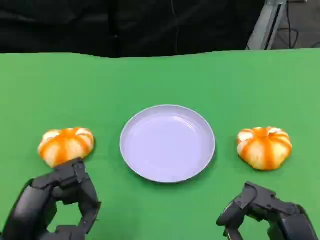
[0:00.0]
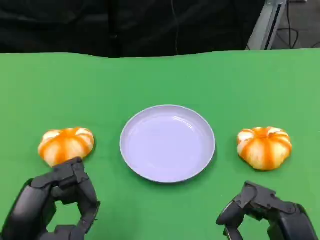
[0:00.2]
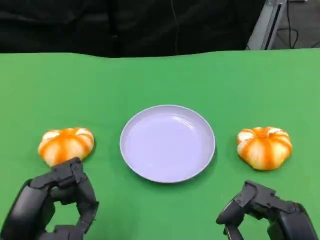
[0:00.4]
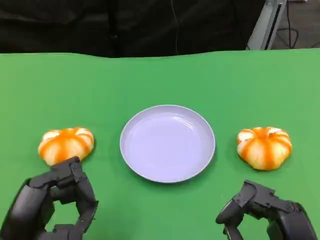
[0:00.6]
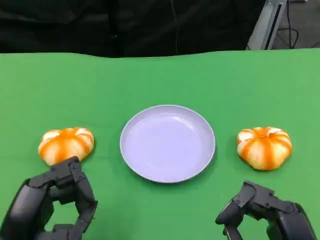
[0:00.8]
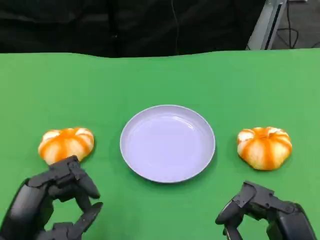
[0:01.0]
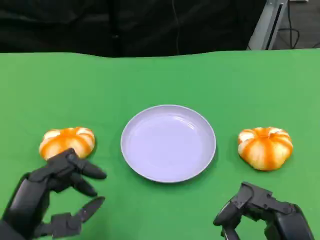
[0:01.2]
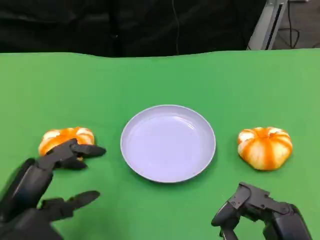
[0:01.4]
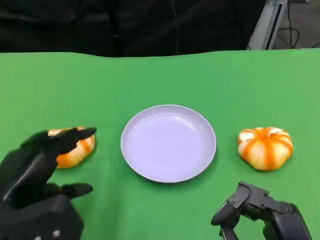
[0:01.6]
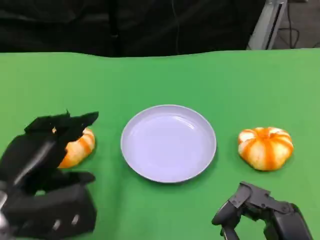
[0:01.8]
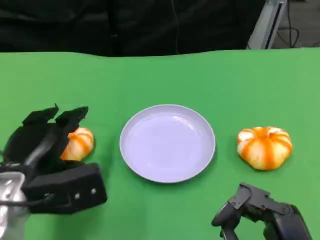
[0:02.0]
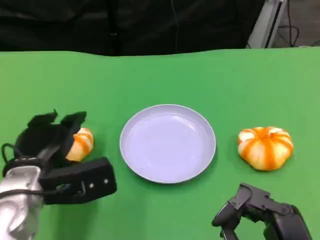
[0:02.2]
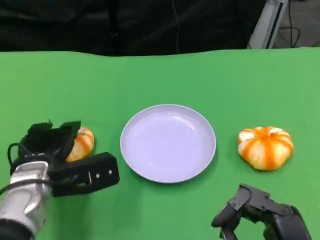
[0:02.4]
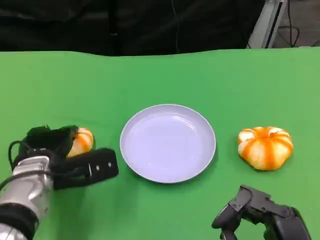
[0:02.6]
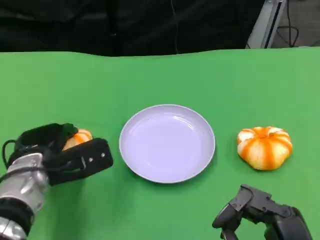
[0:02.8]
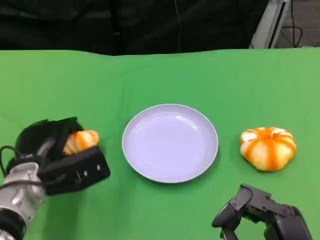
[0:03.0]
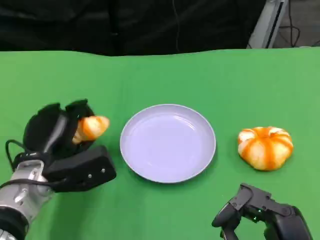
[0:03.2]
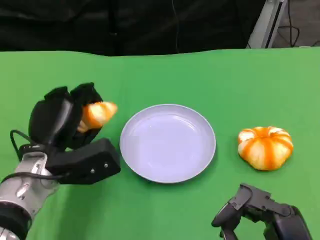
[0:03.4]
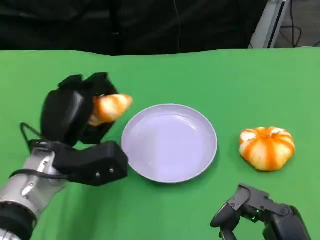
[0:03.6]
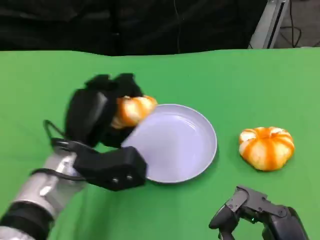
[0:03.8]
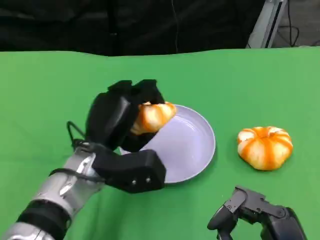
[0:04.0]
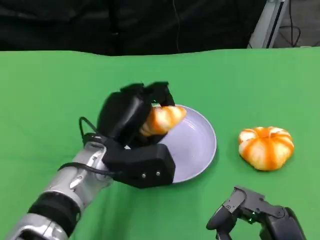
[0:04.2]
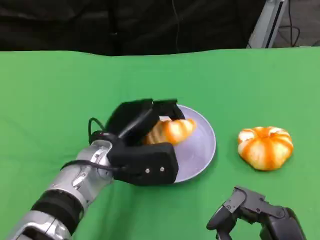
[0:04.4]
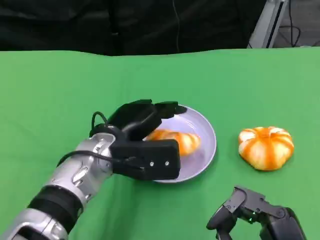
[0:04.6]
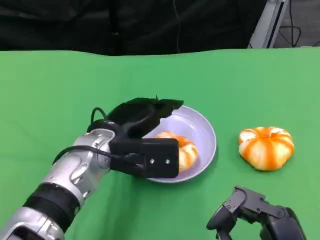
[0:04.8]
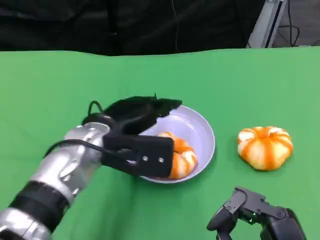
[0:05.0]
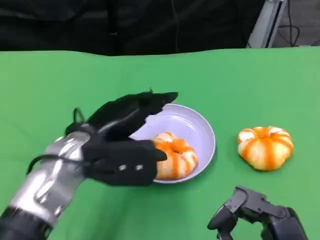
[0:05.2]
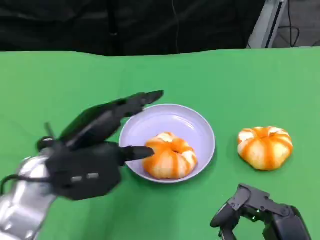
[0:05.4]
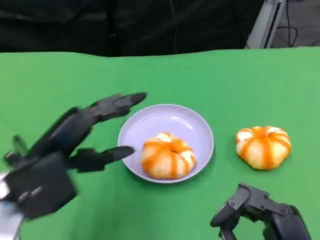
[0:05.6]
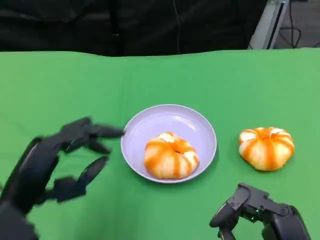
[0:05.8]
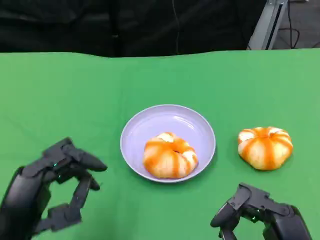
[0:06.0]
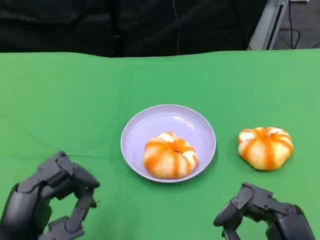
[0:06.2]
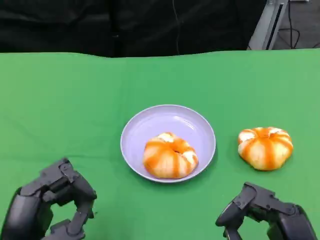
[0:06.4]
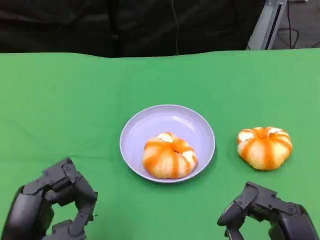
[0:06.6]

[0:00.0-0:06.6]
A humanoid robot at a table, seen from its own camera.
Task of the whole recording: Grasp the bread from the table and place it into the plate.
0:00.0 to 0:01.6: The left hand moves approximately 5 cm.
0:01.6 to 0:03.2: The left hand is displaced forward and downward by approximately 10 cm.
0:03.2 to 0:05.0: The left hand moves to the right and upward, roughly 10 cm.
0:05.0 to 0:06.6: The left hand goes some 20 cm backward and to the left.

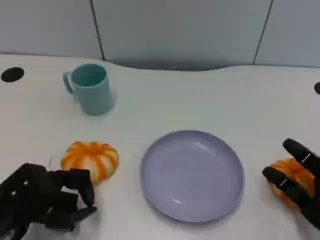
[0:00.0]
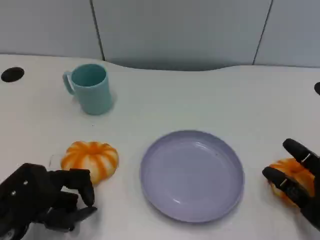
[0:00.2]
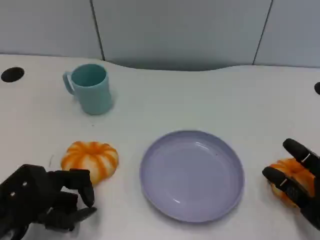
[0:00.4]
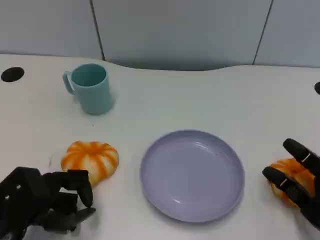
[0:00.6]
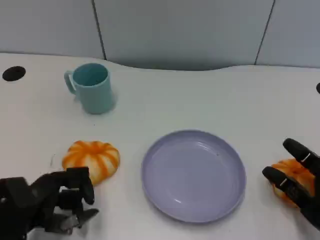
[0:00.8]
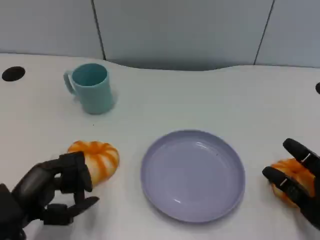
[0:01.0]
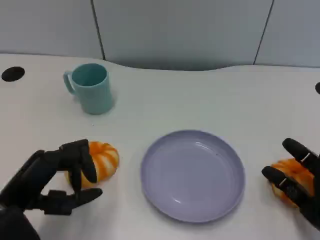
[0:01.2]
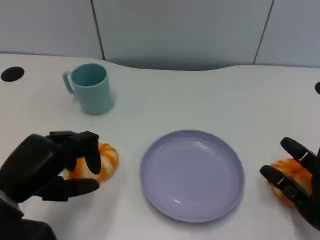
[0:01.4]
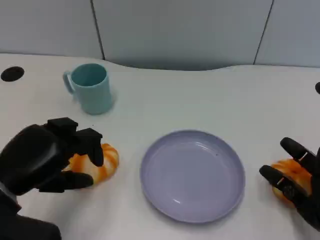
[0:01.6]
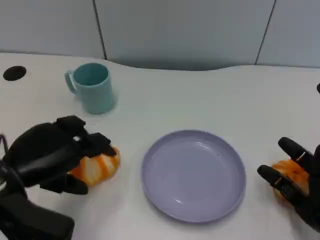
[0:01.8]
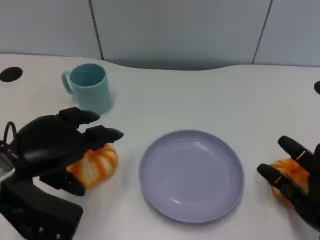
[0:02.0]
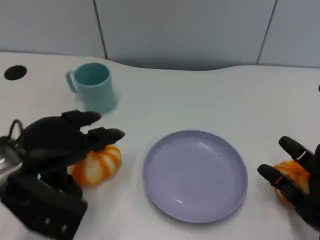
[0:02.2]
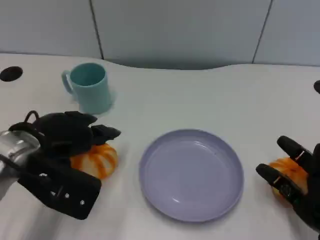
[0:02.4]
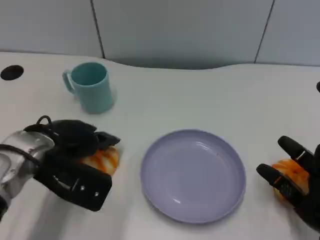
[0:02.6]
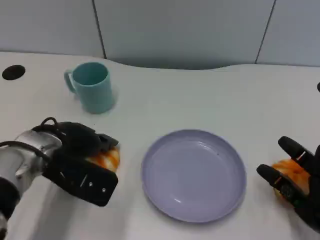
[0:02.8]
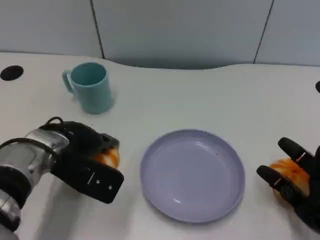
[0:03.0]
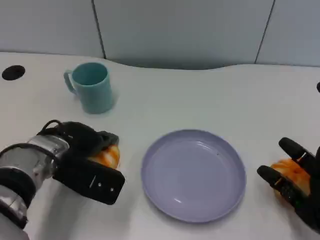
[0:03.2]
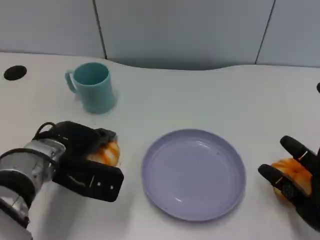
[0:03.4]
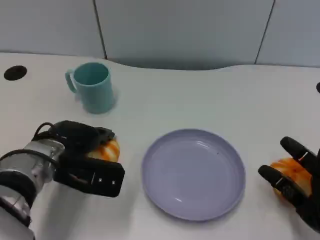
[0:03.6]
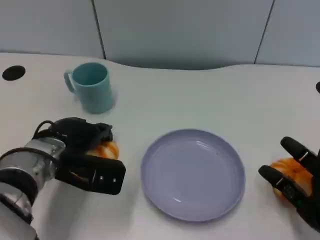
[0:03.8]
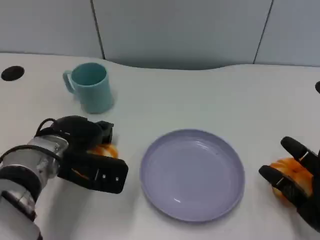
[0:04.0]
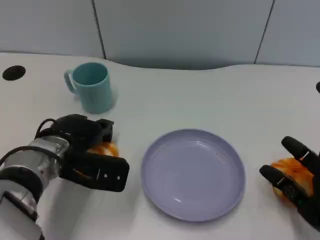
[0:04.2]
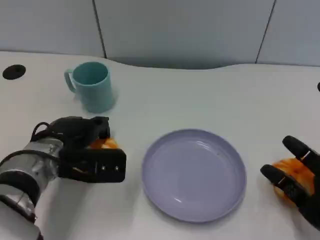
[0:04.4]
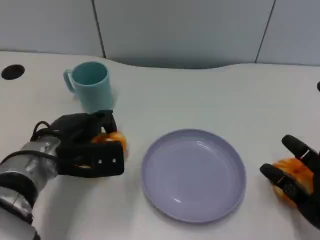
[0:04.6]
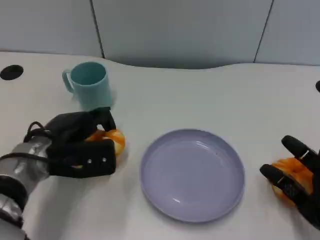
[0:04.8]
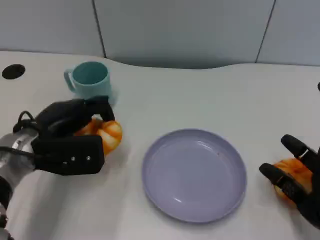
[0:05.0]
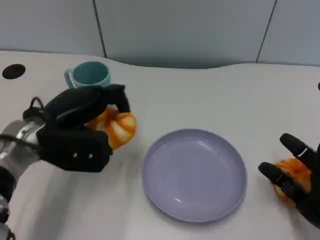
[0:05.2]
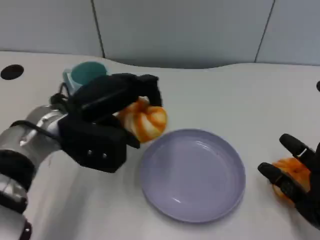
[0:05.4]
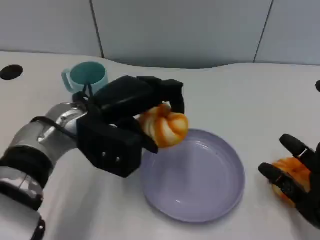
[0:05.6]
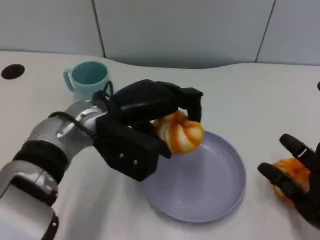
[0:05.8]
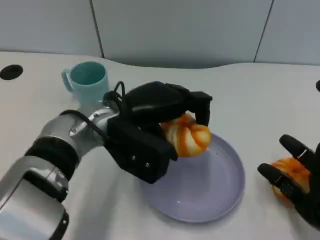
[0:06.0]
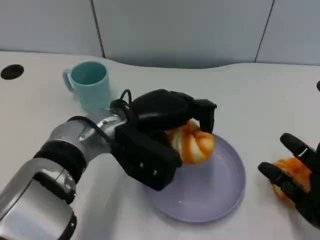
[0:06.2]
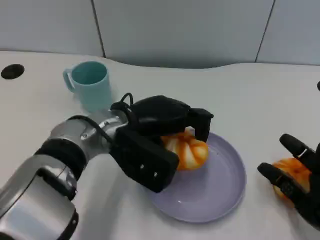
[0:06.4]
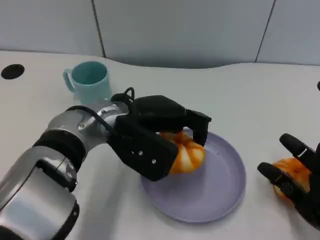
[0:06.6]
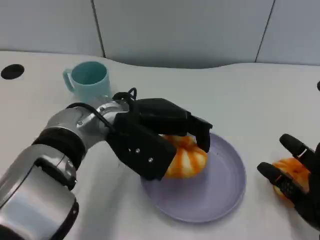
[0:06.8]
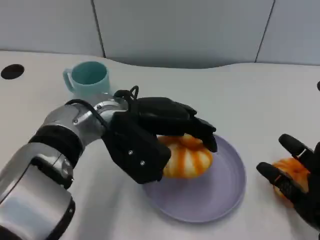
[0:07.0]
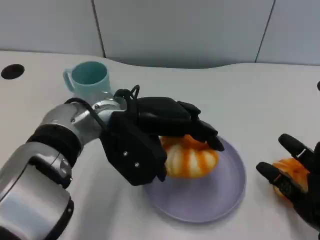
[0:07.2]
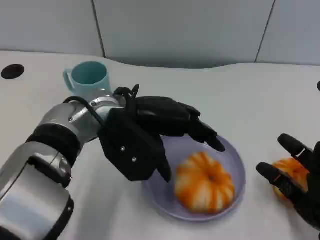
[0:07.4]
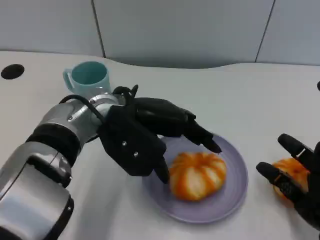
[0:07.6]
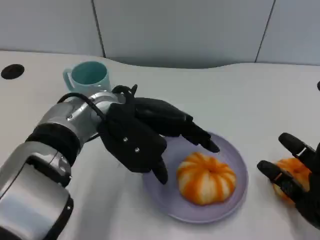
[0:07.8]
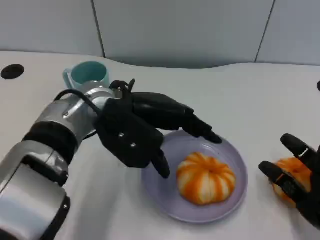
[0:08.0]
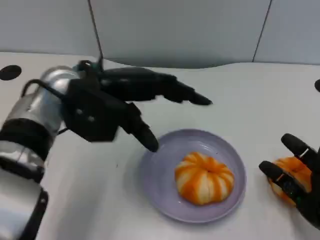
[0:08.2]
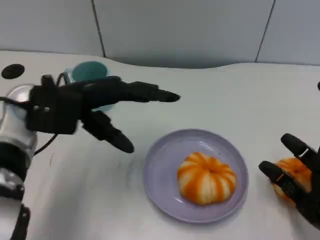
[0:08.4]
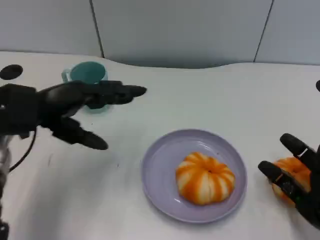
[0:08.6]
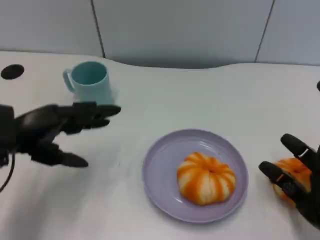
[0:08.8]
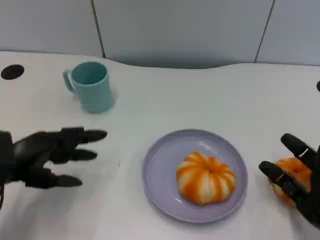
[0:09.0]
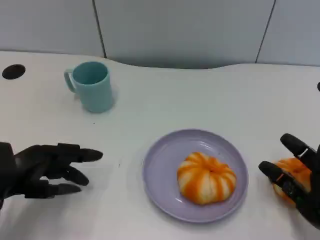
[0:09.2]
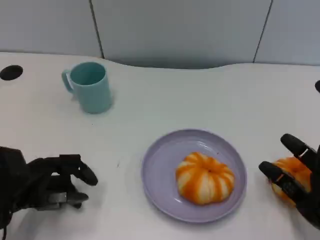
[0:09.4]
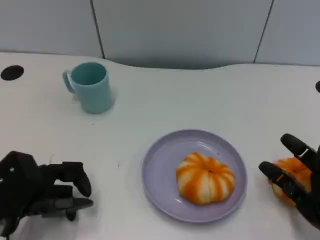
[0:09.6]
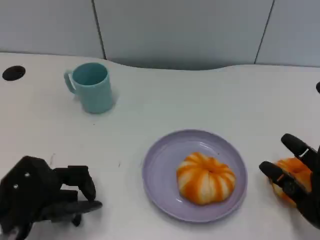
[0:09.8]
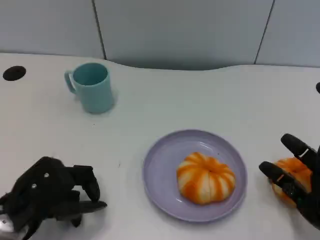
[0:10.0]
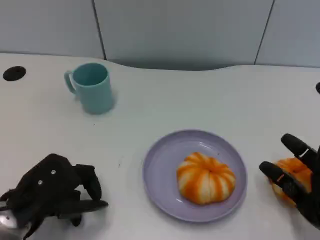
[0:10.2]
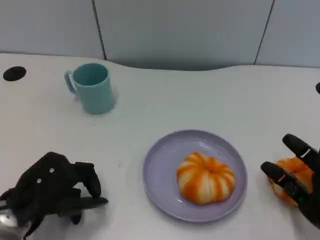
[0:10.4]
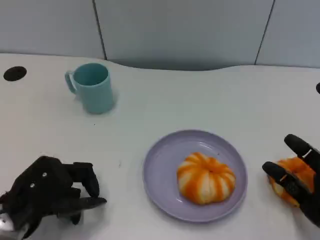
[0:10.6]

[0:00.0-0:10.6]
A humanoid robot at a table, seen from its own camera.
Task of the whole recording: Grasp the bread from the table and place it into the plate.
0:00.0 to 0:01.6: The left hand goes roughly 5 cm upward.
0:01.6 to 0:03.0: The left hand heads forward and to the right, covering approximately 10 cm.
0:04.6 to 0:06.0: The left hand is displaced to the right and upward by approximately 10 cm.
0:07.6 to 0:09.0: The left hand shifts some 20 cm to the left and downward.
0:09.0 to 0:10.6: The left hand shifts by some 5 cm.

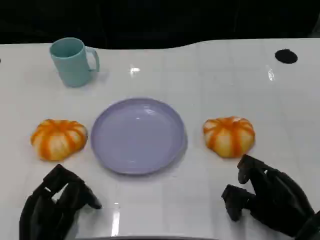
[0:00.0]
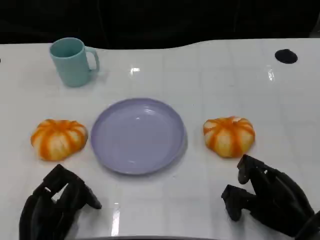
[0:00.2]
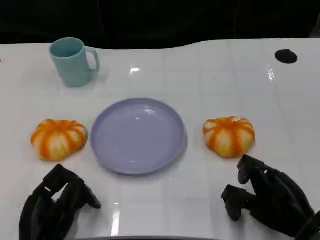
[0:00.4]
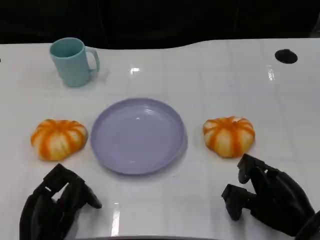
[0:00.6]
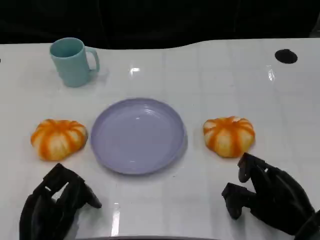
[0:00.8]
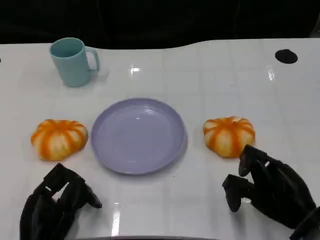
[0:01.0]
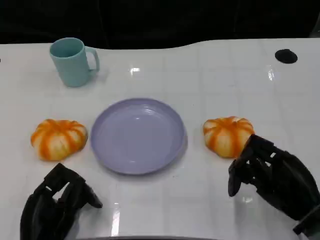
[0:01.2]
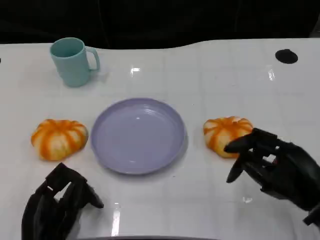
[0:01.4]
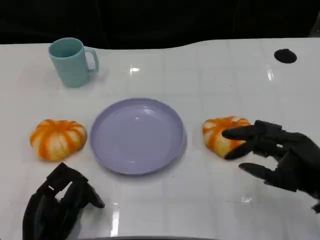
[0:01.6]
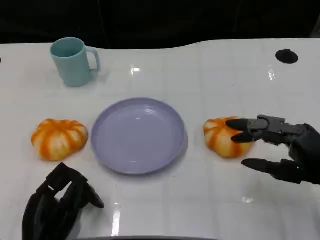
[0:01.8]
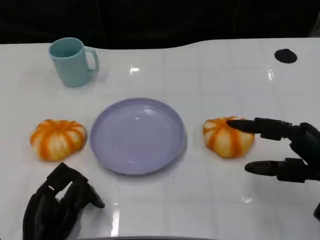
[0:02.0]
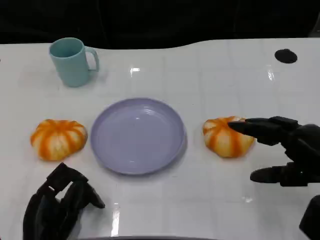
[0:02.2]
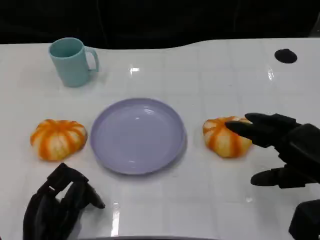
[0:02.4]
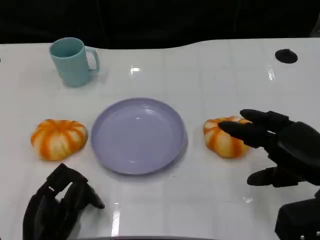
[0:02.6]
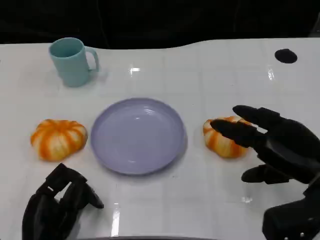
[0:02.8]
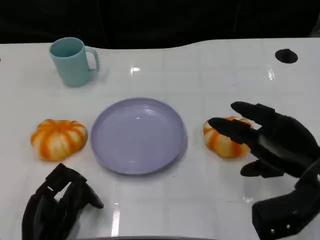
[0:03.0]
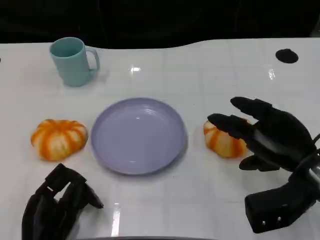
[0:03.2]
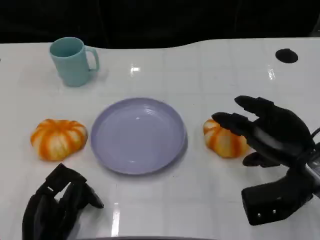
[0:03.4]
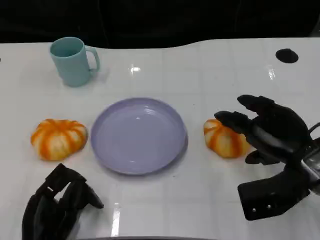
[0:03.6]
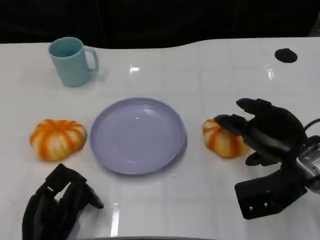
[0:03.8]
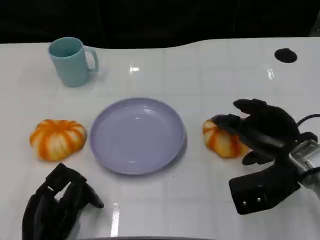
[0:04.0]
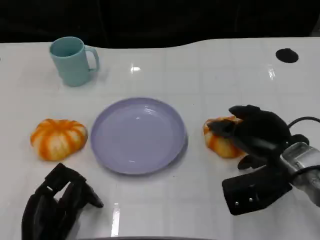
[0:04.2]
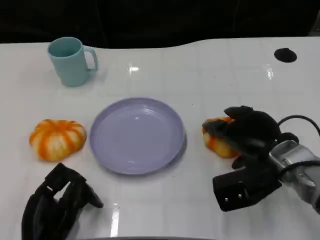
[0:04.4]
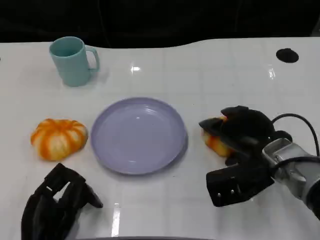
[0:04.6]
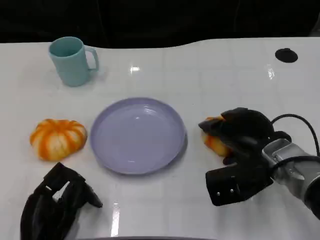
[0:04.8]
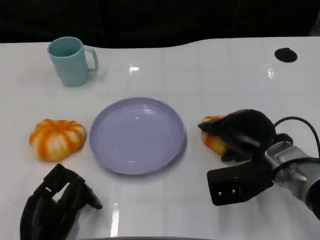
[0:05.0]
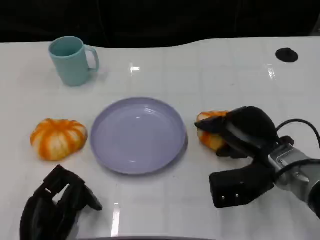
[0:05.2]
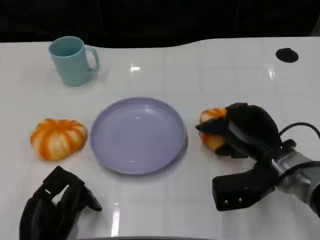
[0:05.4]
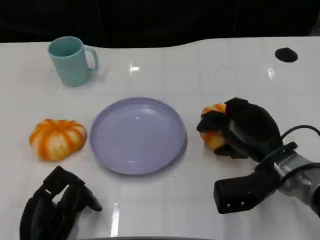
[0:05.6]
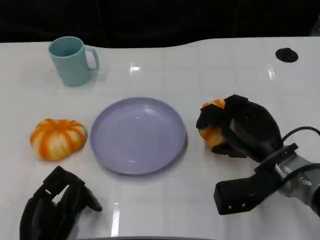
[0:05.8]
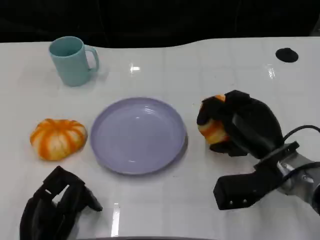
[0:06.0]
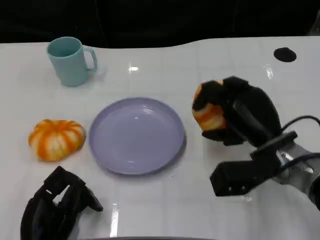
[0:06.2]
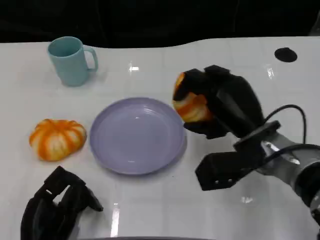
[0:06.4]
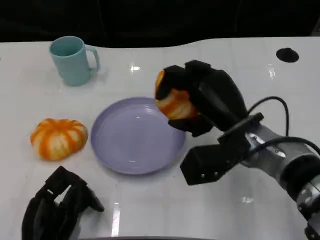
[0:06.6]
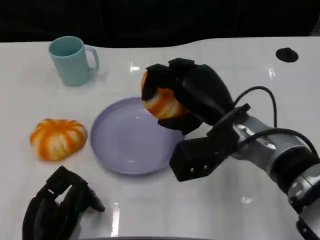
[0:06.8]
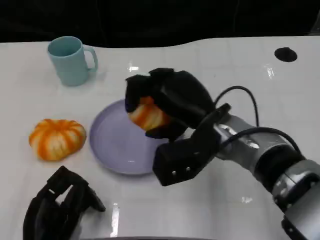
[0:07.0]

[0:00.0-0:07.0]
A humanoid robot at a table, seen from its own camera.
Task of the whole recording: Grasp the bread from the table and place it into the plate.
0:02.8 to 0:04.2: The right hand is displaced forward by roughly 5 cm.
0:05.6 to 0:07.0: The right hand moves to the left and upward, roughly 10 cm.
